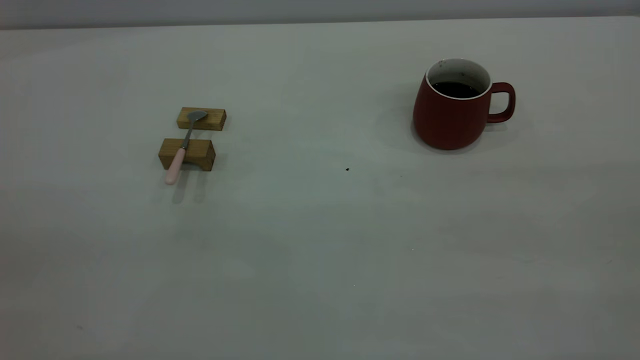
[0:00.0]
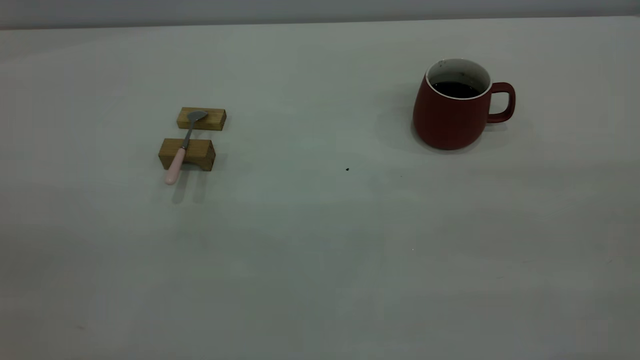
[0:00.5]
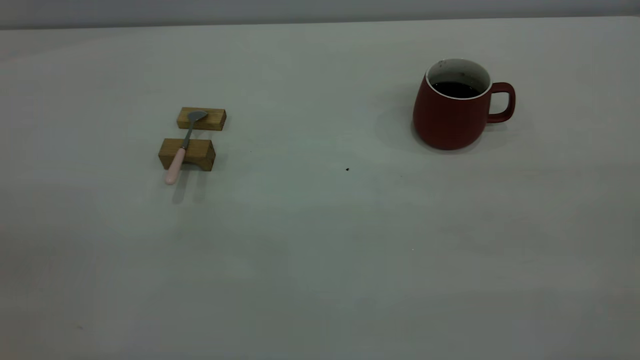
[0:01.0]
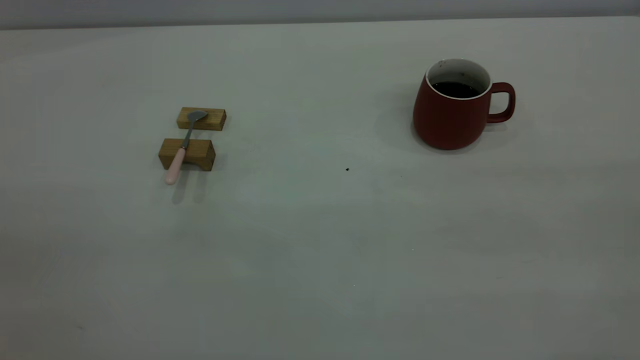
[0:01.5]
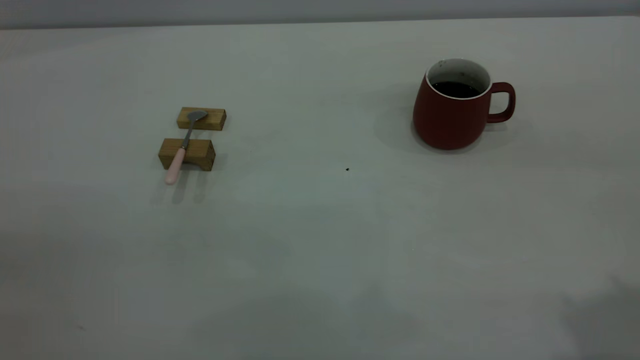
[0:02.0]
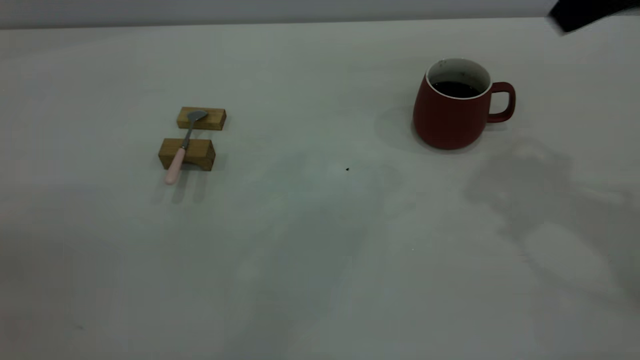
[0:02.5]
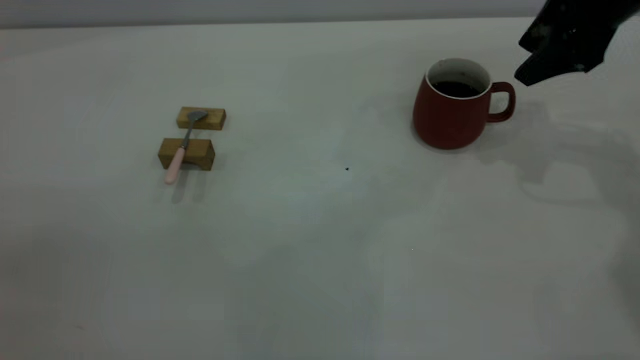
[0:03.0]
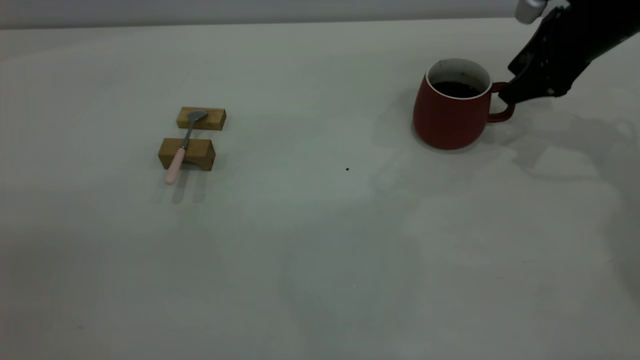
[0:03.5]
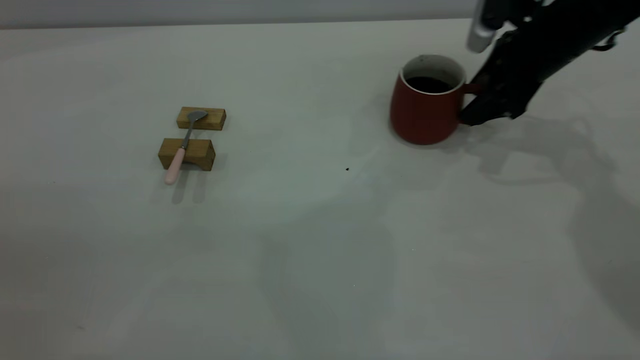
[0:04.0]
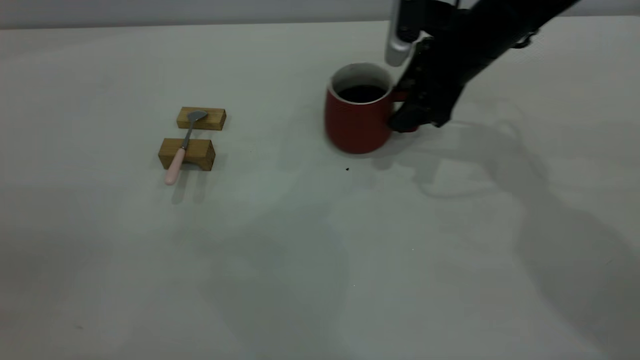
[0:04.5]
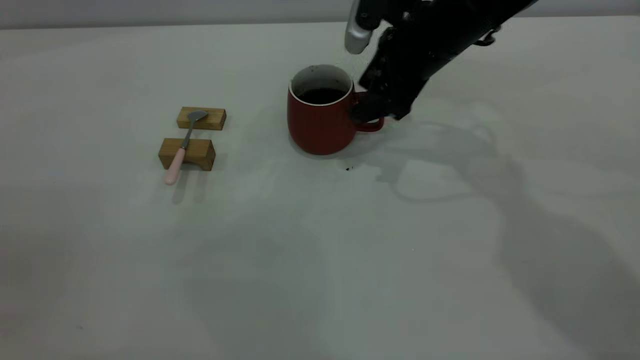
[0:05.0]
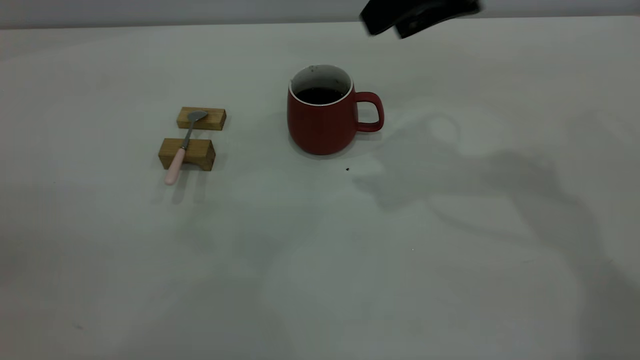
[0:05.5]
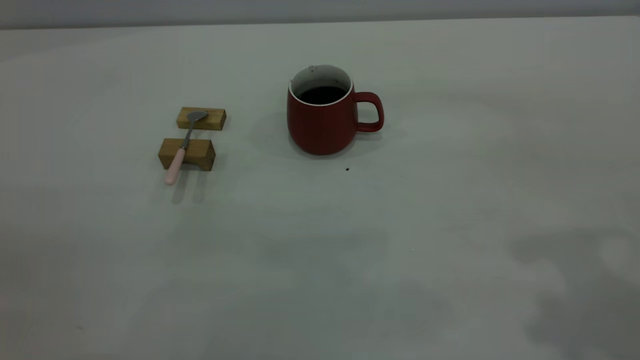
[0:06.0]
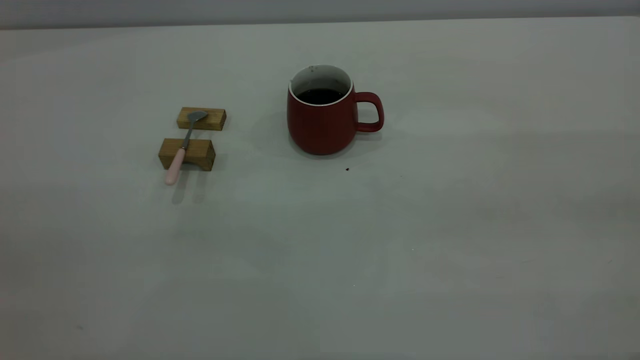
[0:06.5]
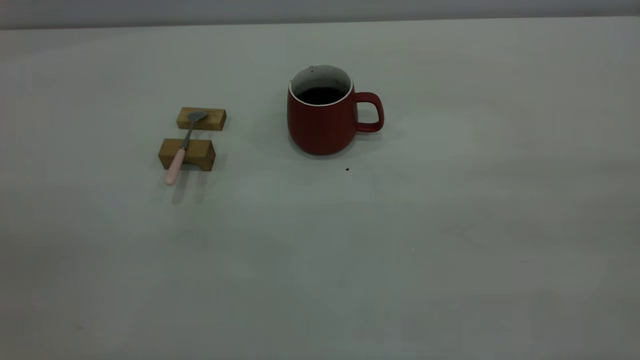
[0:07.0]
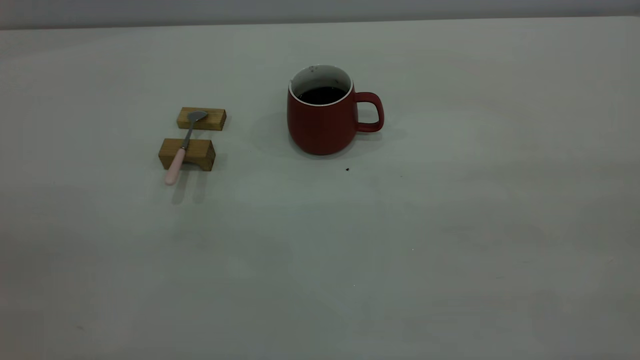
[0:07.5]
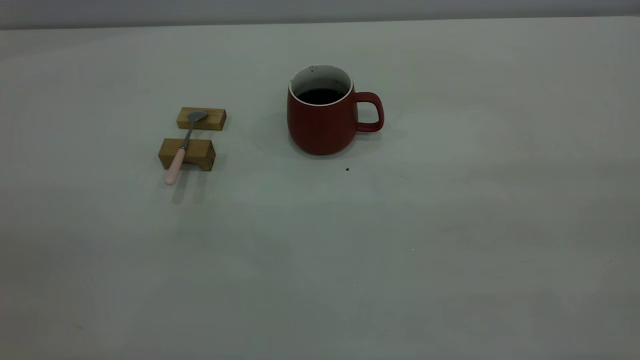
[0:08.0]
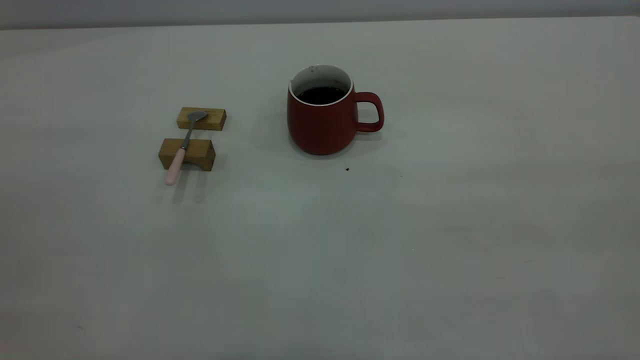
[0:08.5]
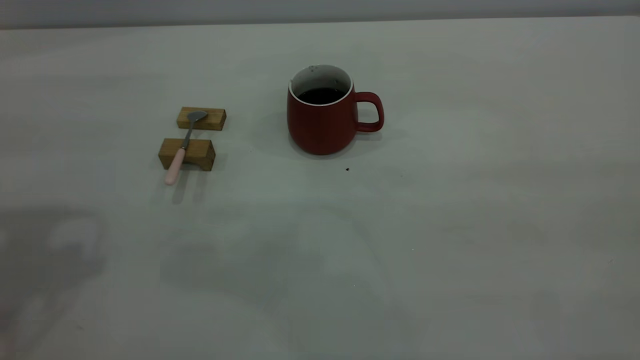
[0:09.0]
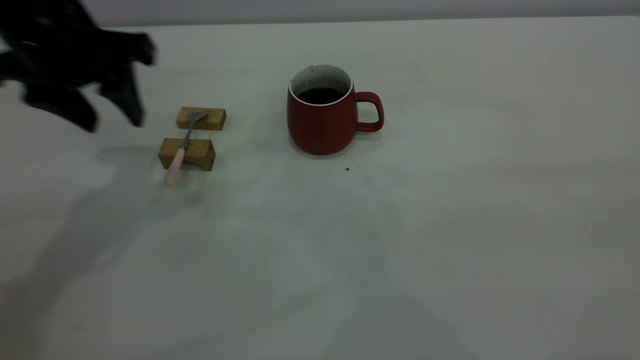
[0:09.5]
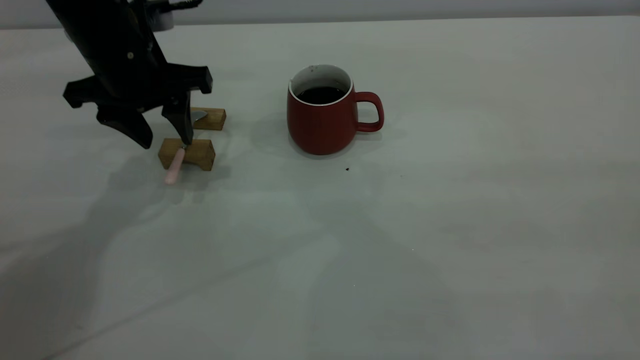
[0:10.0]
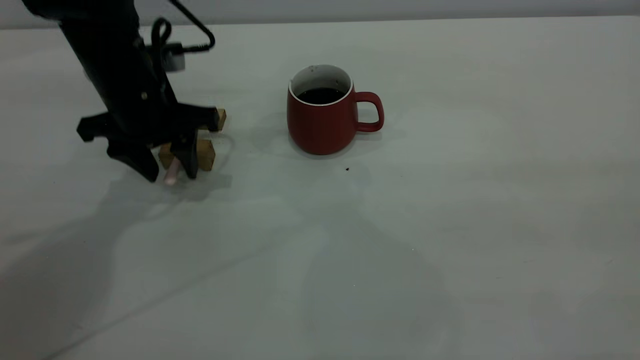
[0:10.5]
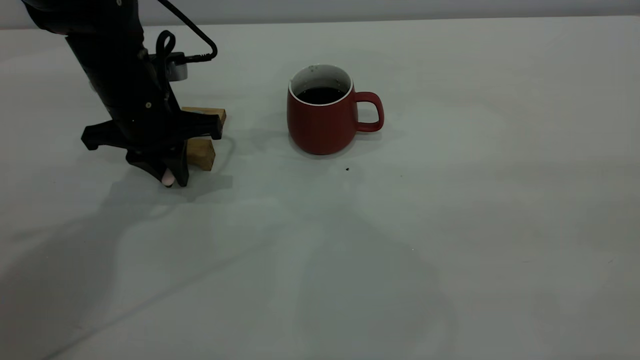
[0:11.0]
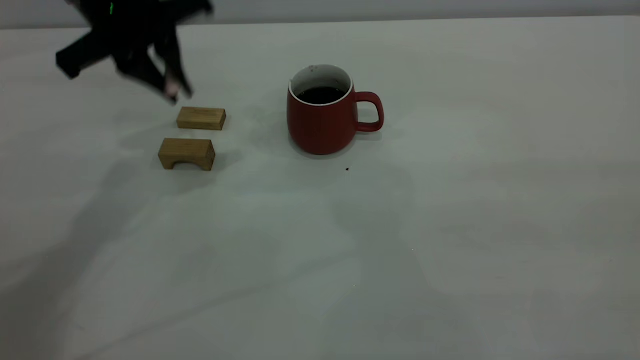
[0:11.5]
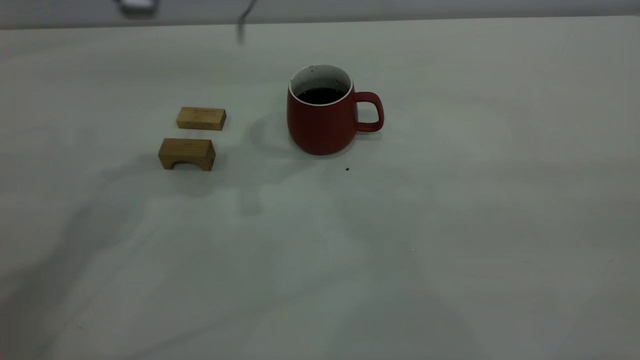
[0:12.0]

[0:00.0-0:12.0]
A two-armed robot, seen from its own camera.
Step, 0:00.0 to 0:05.0: Move the cup with coffee to the center of view.
Step, 0:05.5 to 0:11.0: Pick up the spoon.
0:02.0 to 0:04.0: The right gripper is displaced forward and downward by about 40 cm.
0:04.0 to 0:06.0: The right gripper goes roughly 35 cm backward and upward.
0:08.0 to 0:10.0: The left gripper shifts some 40 cm forward and downward.
0:10.0 to 0:12.0: The left gripper moves upward and to the right, approximately 15 cm, and closes up.

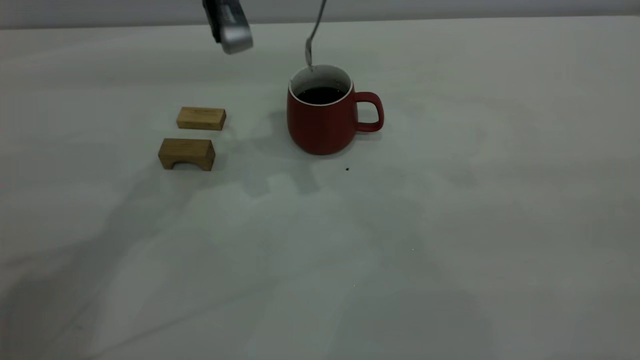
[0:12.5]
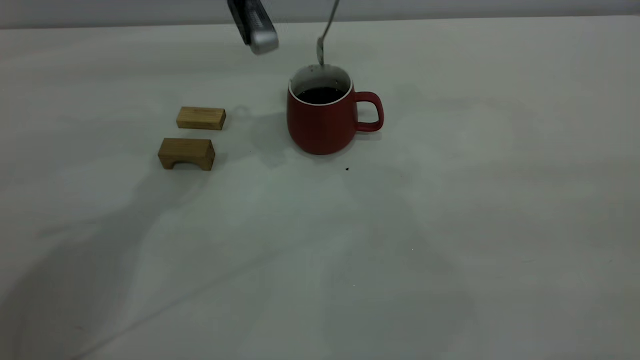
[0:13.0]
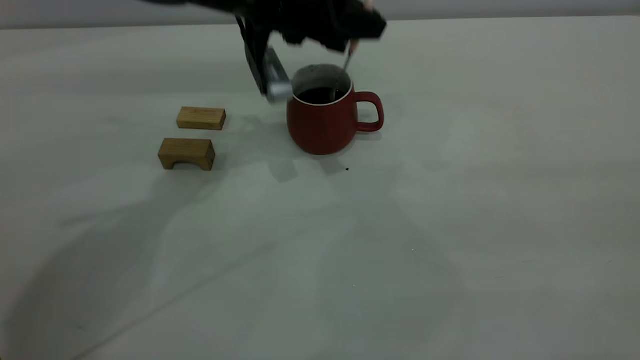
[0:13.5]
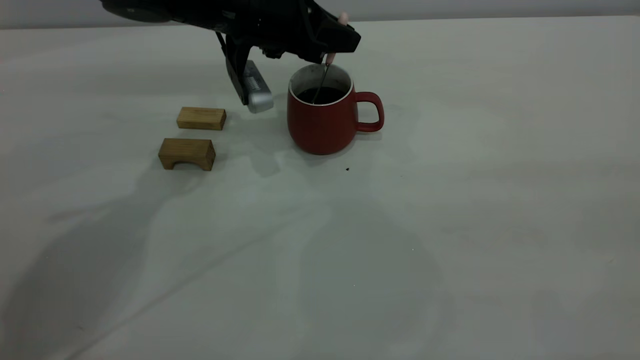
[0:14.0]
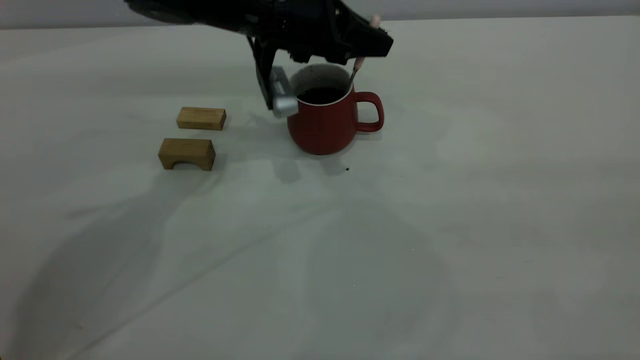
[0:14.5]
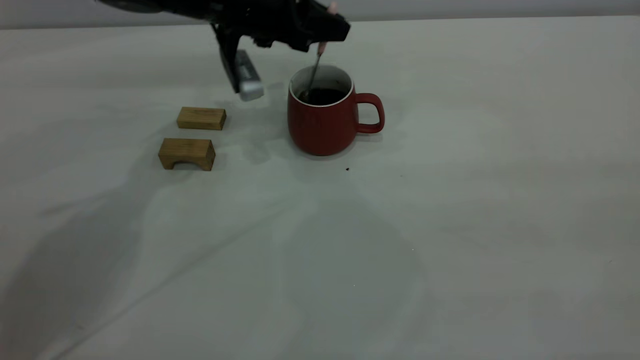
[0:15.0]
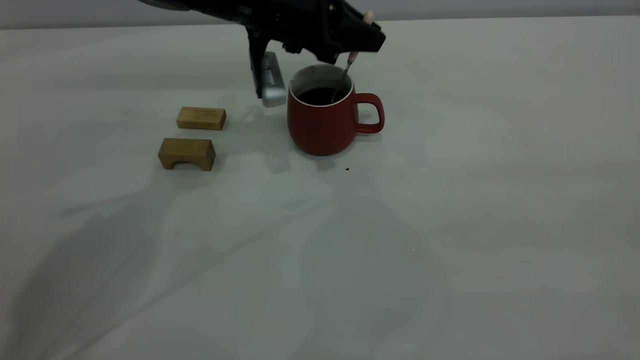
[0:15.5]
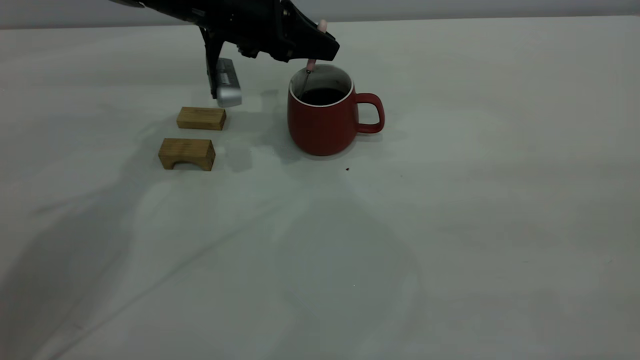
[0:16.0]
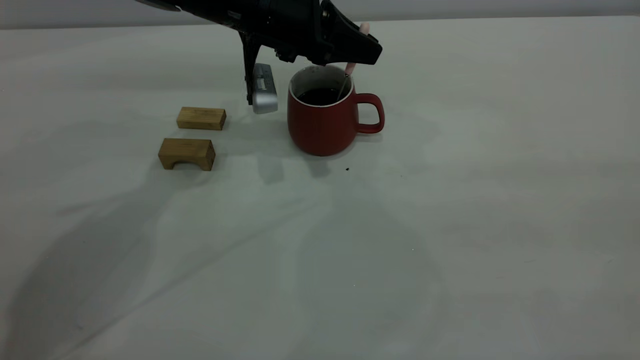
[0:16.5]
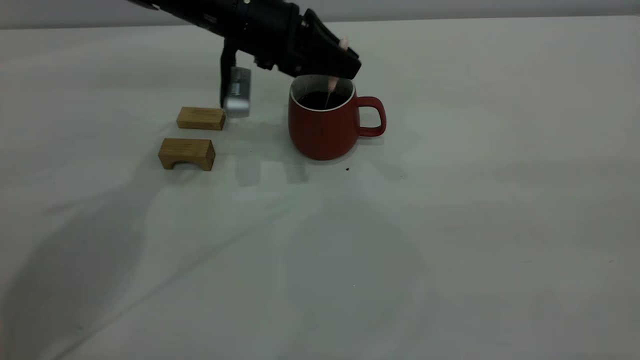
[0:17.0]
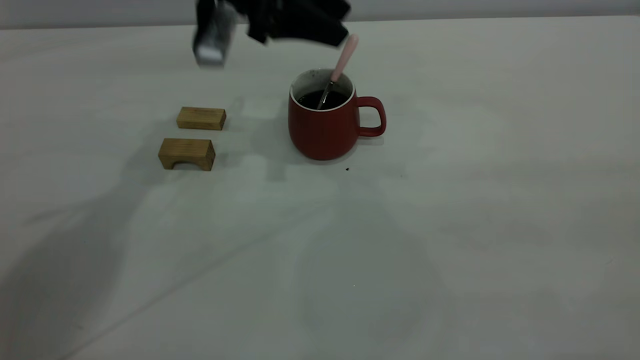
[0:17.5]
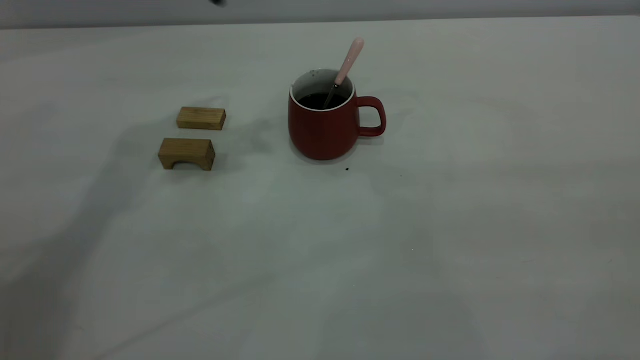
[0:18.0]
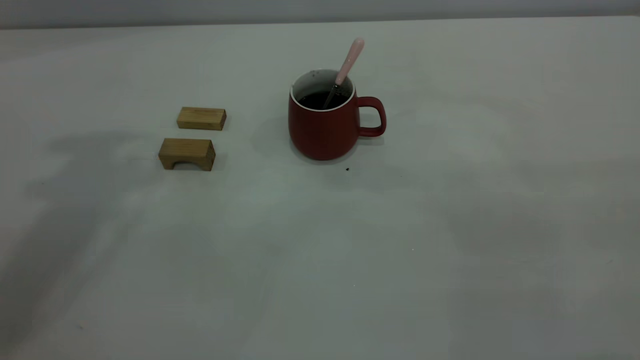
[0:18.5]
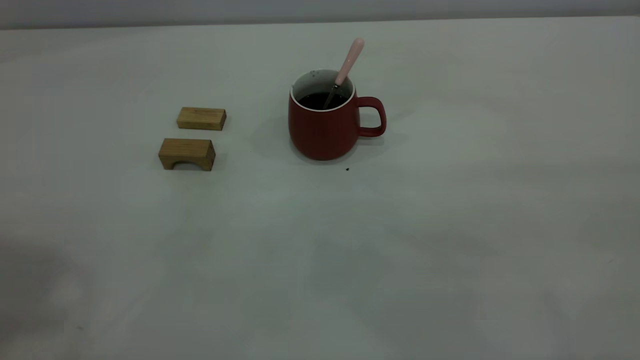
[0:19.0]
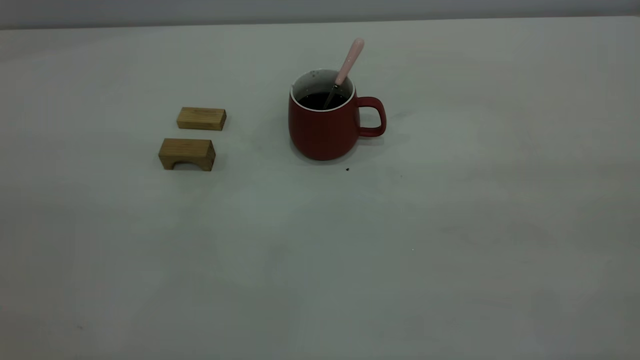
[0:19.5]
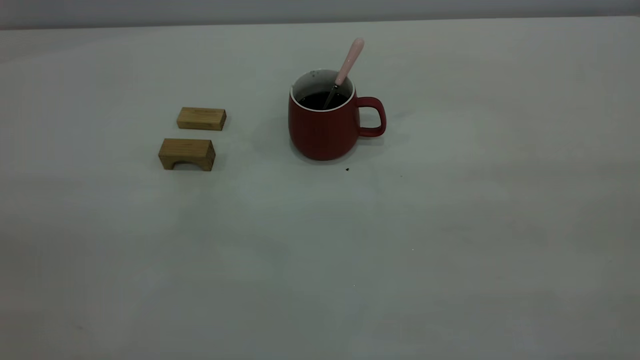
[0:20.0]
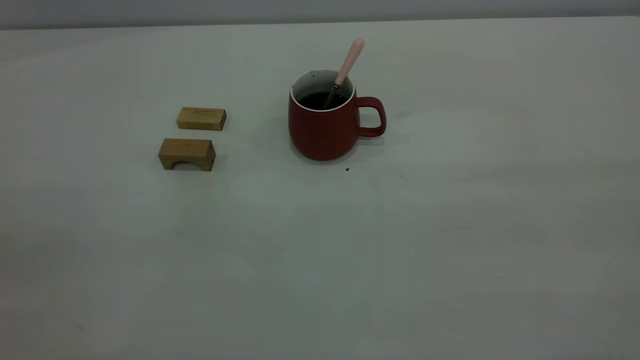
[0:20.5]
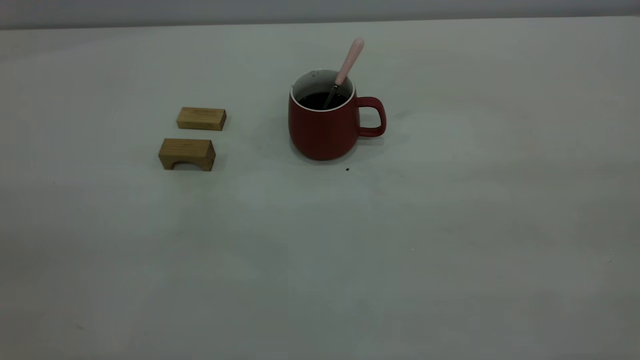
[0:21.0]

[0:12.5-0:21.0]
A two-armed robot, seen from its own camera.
Step, 0:12.5 to 0:17.5: Stir the coffee in the cup.
0:12.5 to 0:14.5: The left gripper moves downward, some 10 cm.
0:14.5 to 0:16.5: There are only small adjustments of the grippers.
0:16.5 to 0:19.0: The left gripper heads upward, backward and to the left, covering roughly 50 cm, and opens.
